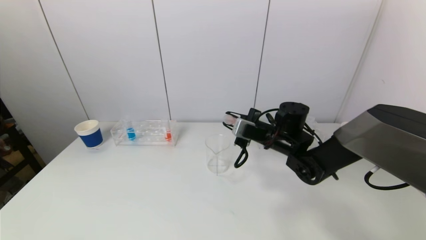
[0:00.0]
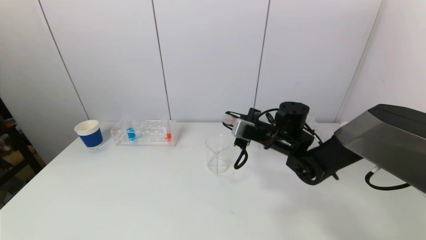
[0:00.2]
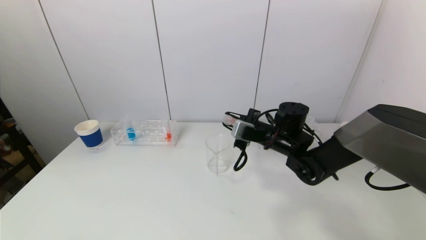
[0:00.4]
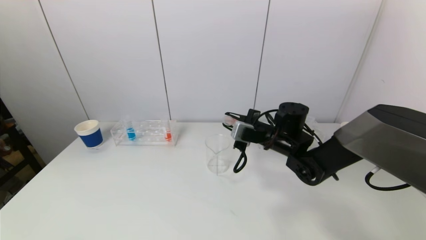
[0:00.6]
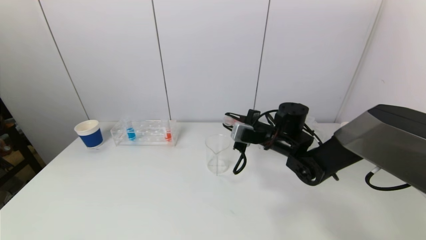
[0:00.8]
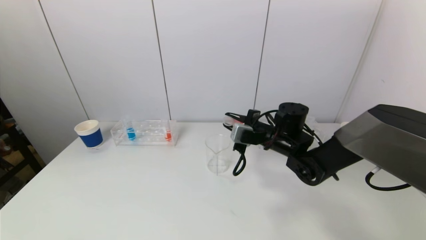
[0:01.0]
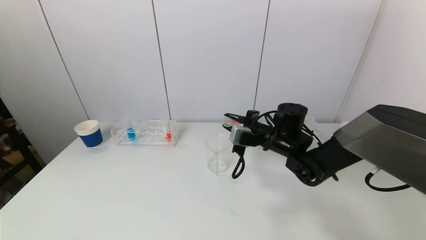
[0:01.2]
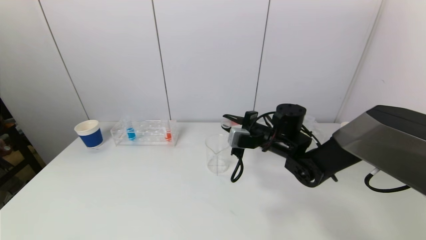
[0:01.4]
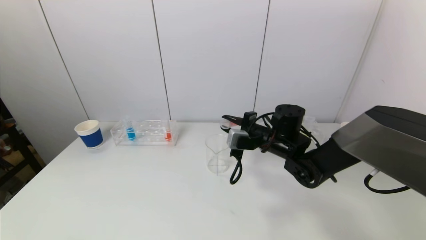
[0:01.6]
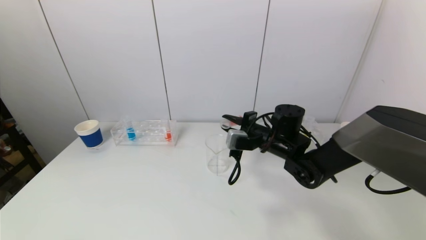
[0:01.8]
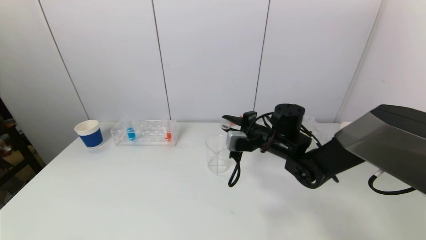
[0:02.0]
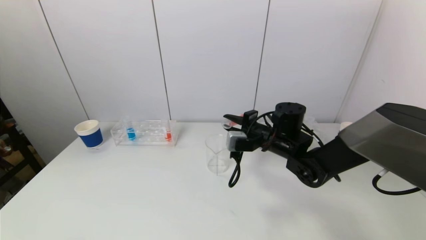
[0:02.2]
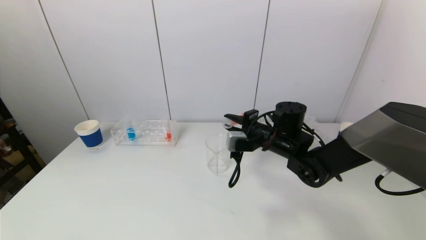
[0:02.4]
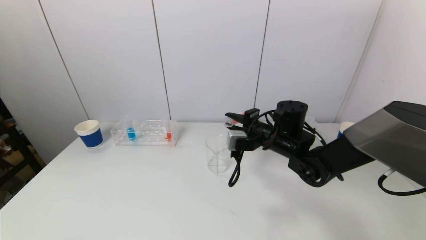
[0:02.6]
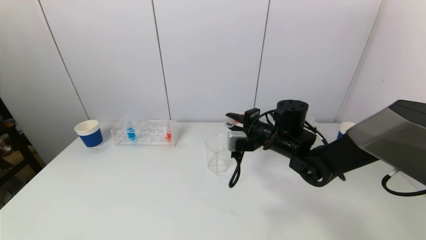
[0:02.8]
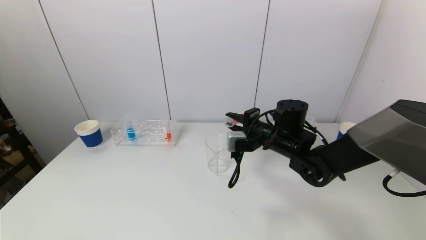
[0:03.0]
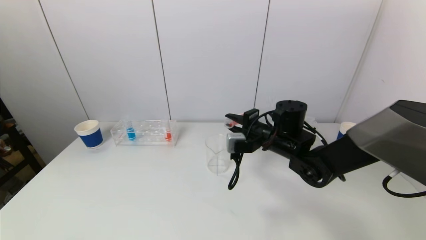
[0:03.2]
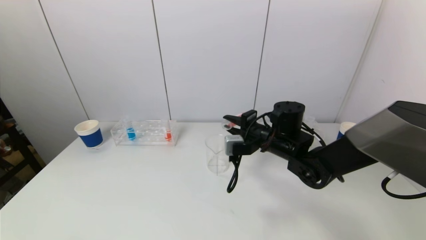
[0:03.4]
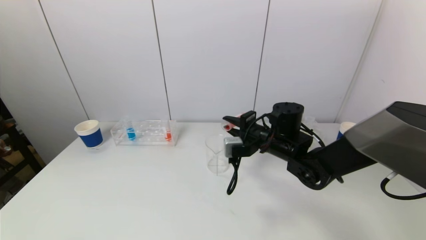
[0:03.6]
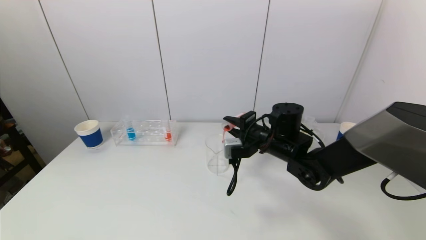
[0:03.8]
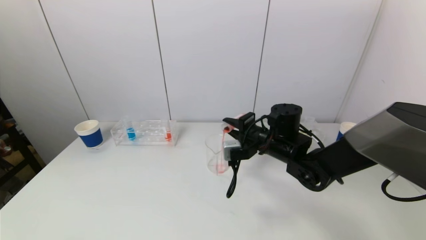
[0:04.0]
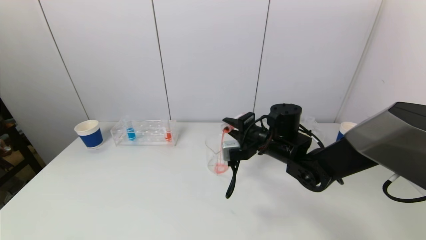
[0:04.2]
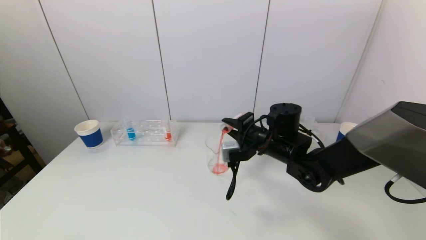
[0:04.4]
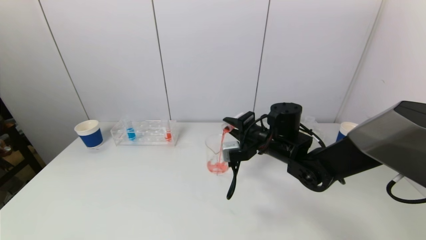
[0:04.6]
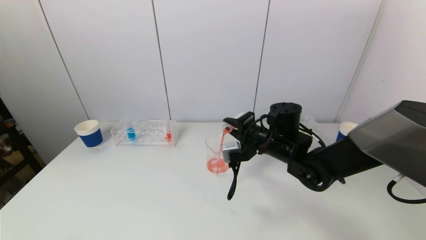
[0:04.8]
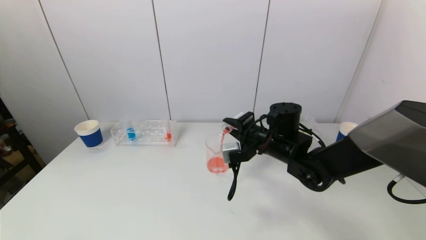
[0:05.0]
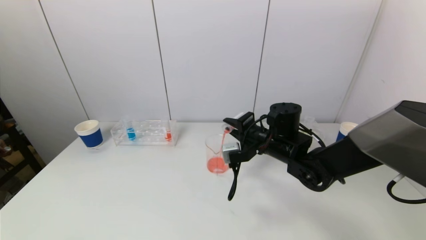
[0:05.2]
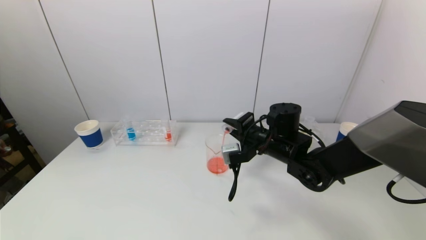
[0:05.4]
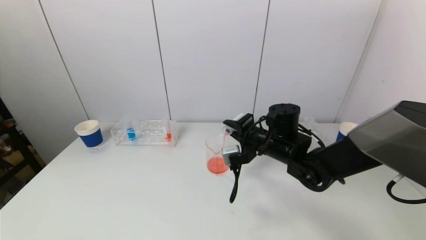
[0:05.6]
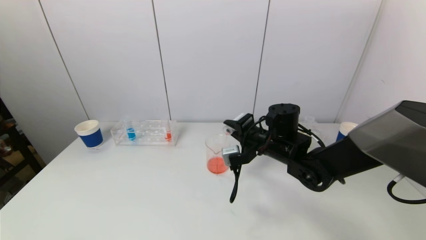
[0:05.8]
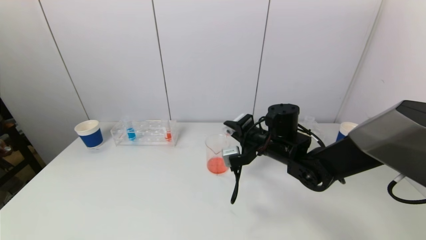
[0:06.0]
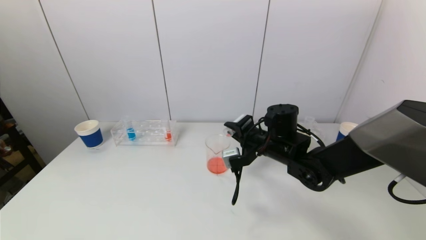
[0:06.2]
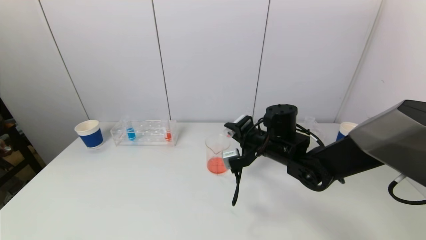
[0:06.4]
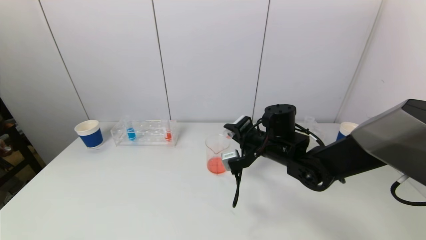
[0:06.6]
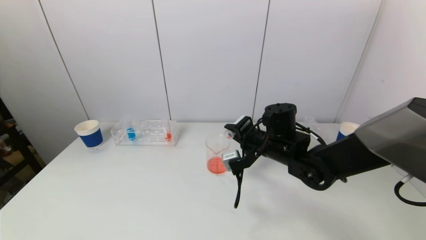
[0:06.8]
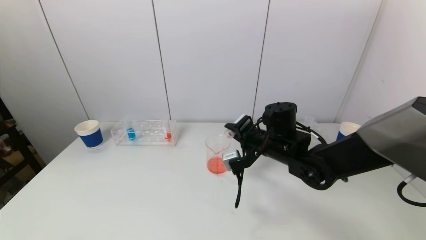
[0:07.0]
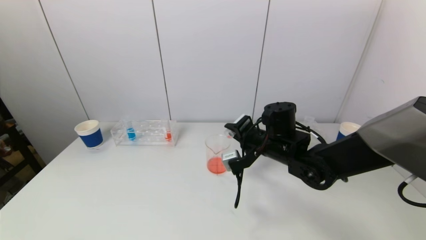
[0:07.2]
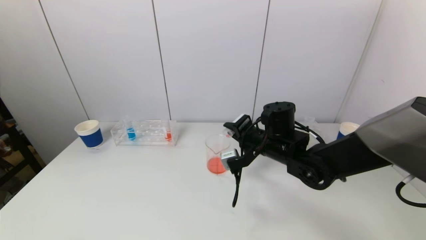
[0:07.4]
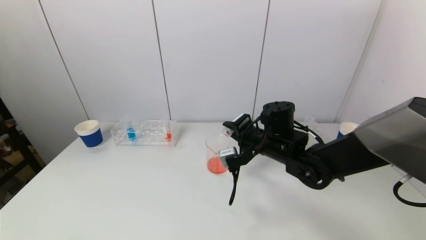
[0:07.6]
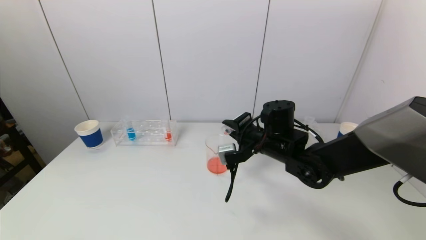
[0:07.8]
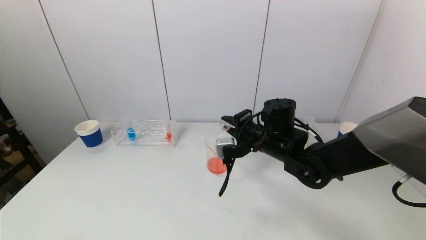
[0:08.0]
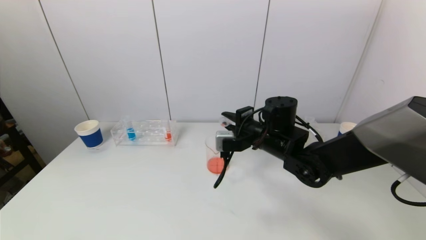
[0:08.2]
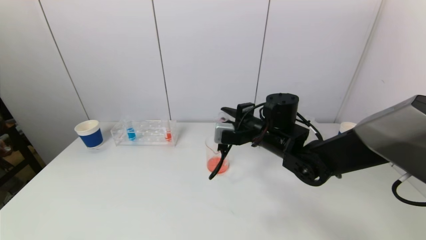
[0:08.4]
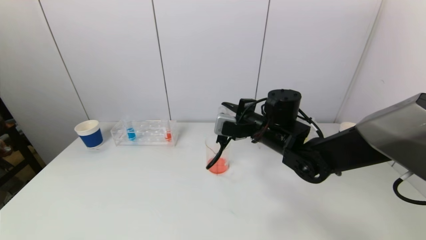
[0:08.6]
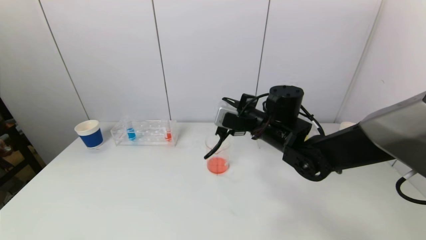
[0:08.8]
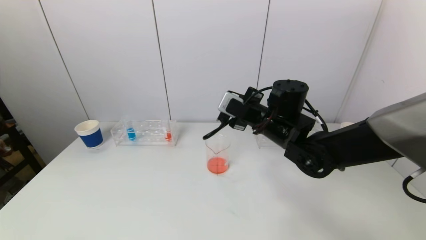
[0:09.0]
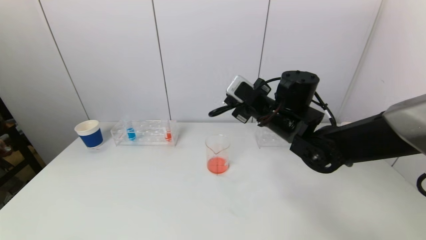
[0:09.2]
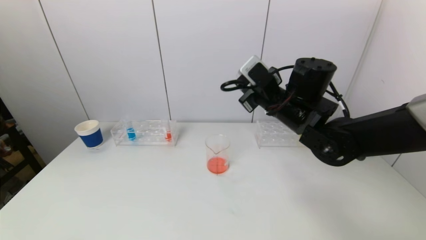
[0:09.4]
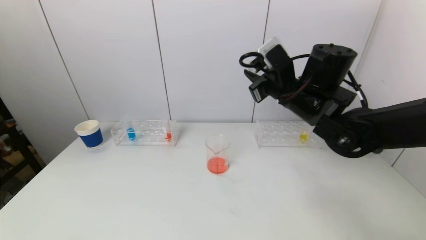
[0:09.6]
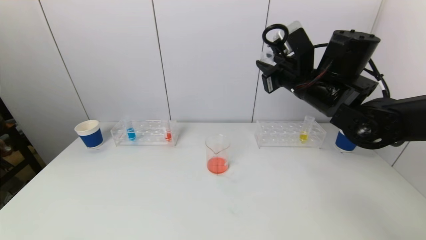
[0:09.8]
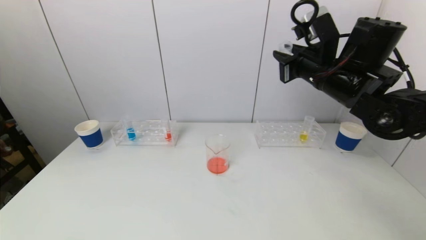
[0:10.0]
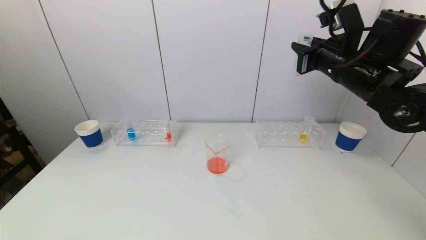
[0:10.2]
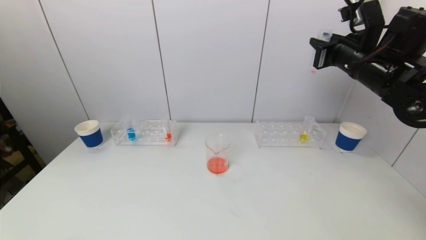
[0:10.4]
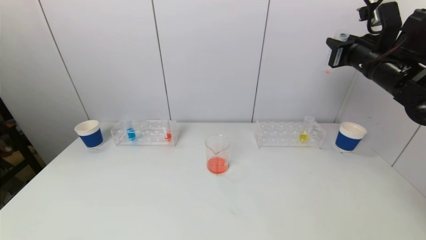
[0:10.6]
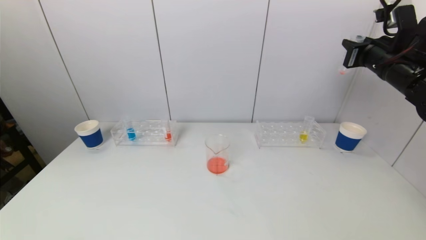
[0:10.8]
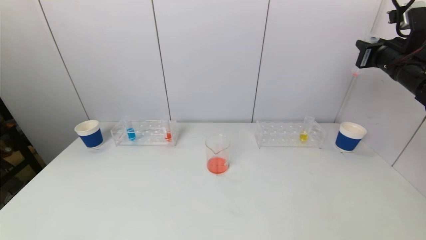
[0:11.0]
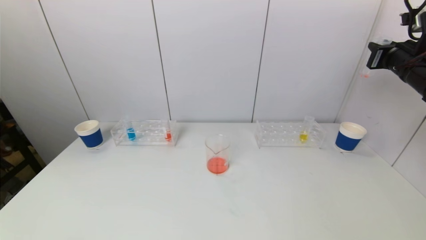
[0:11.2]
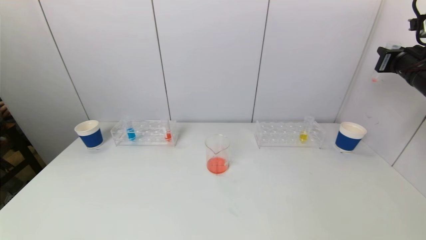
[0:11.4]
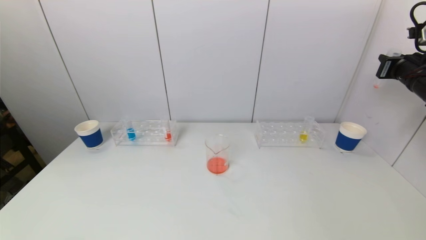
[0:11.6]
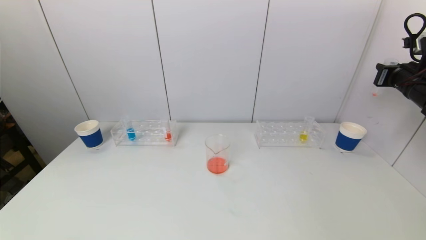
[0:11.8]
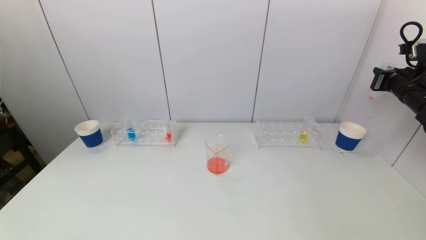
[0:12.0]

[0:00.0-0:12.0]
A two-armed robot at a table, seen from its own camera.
Task of the whole recording: pick up a test tube with pigment on left test tube rack and a test tube with pigment on right test tube rack by grippers and pour them into the beaker.
Step, 0:00.0 to 0:07.4: Pour the red reagent into the graduated cylinder with the right gripper.
0:00.0 to 0:01.6: There are only small adjustments of the grippers.
0:01.6 to 0:03.0: The grippers move only a little.
0:03.0 to 0:06.0: The grippers move only a little.
0:06.0 to 0:07.6: There are only small adjustments of the grippers.
0:07.6 to 0:09.0: The right gripper goes approximately 5 cm upward.
0:09.0 to 0:10.4: The right gripper travels to the right and upward by roughly 20 cm.
0:10.4 to 0:12.0: The right gripper goes about 15 cm to the right and downward.

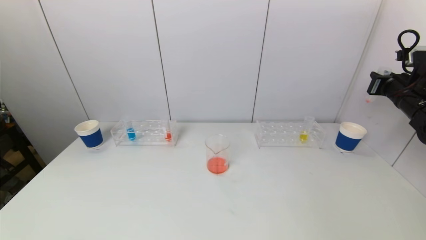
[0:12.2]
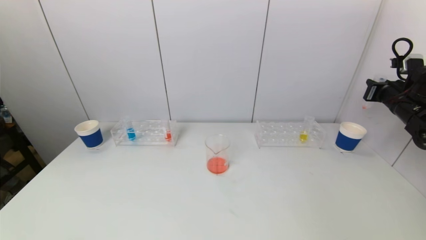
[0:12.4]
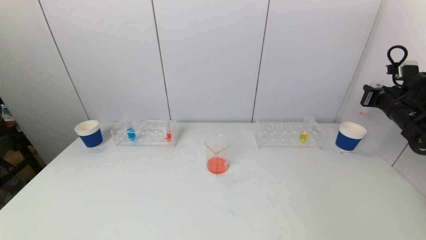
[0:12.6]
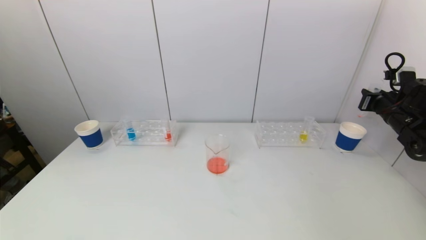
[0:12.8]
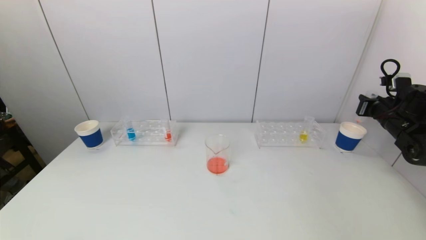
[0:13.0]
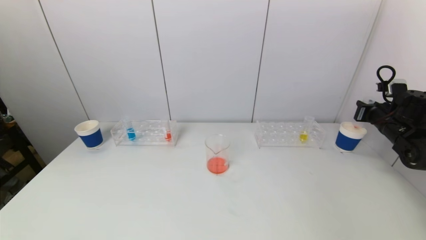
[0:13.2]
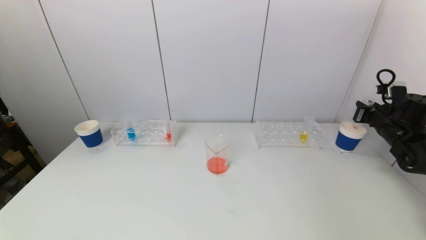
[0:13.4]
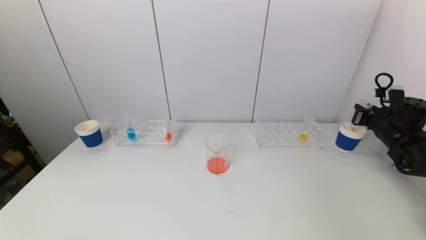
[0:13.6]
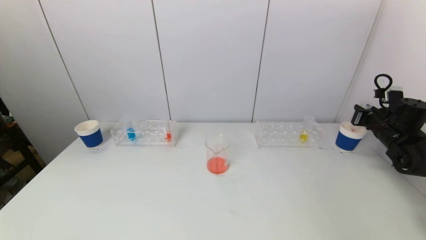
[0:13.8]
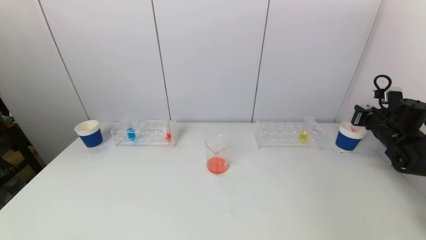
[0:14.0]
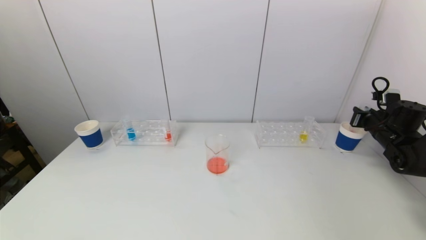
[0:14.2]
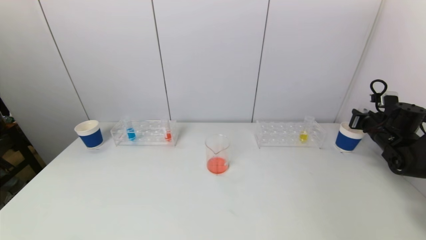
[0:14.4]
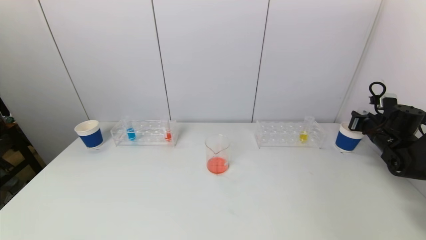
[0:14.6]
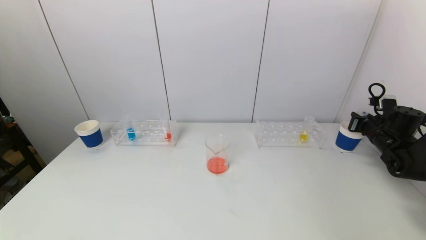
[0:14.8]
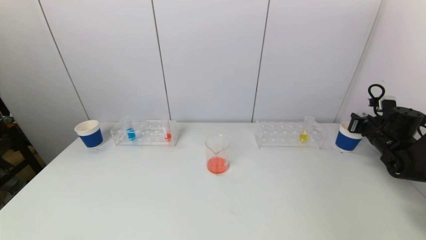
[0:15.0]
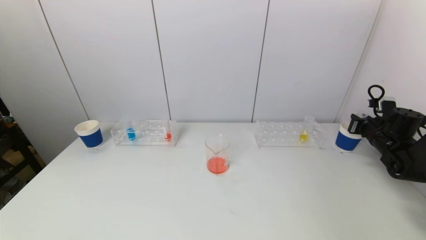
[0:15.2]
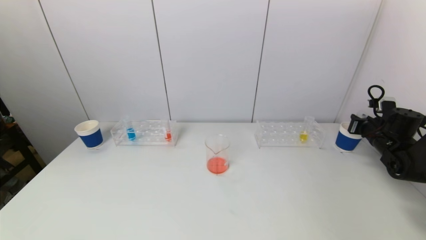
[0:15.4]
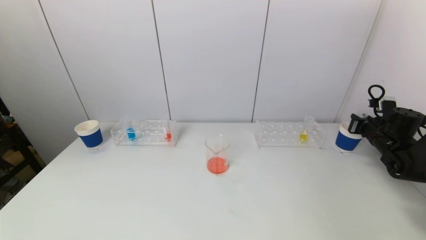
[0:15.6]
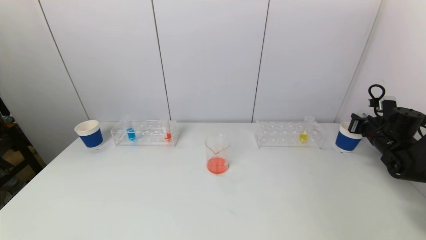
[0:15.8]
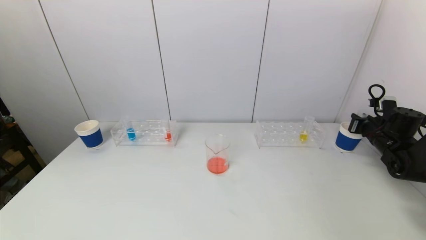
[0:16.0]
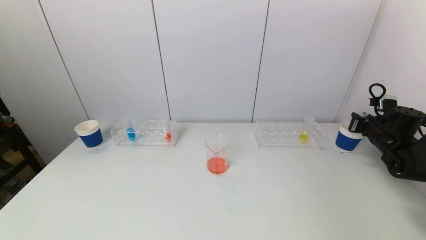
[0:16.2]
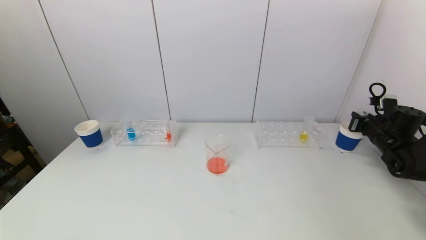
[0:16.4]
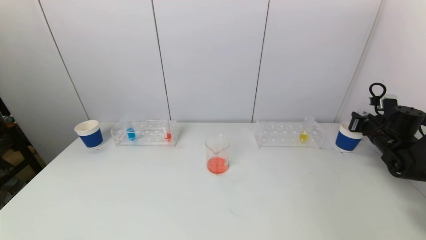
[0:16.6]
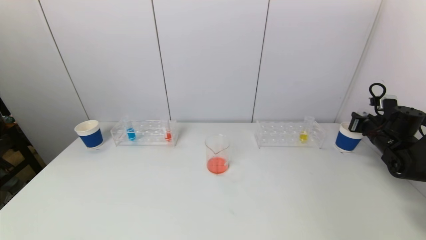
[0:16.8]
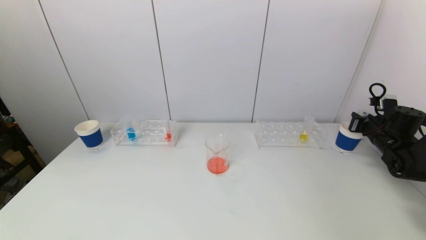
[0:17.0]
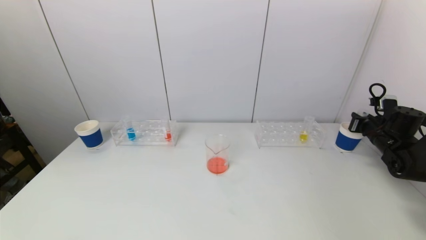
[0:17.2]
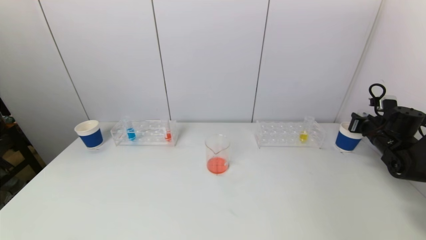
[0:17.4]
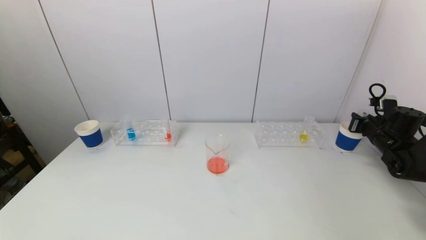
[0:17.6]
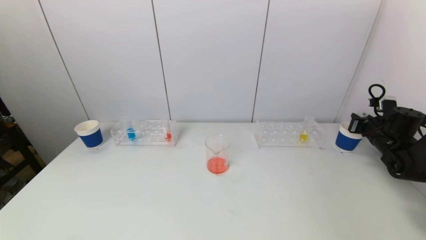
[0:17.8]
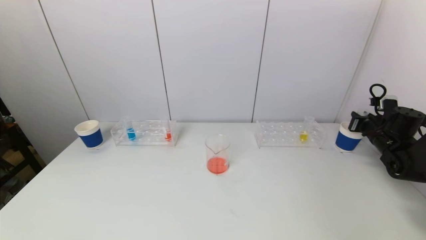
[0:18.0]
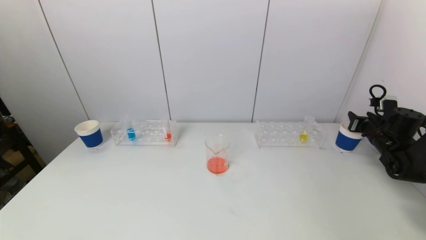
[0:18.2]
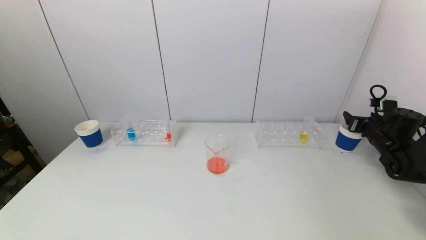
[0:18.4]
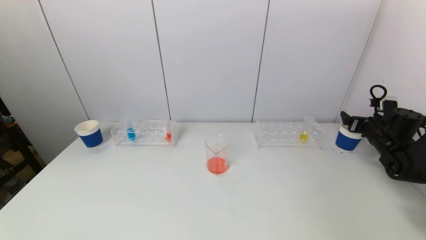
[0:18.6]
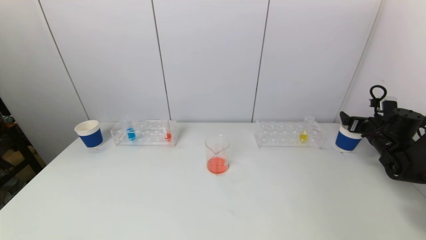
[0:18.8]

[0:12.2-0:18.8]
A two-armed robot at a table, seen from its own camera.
Task of the whole recording: pick up a test tube with pigment on left test tube rack and a test tube with pigment on right test tube rack by grippers and pour them into the beaker.
Step, 0:12.2 to 0:18.2: Place the test tube into the paper cup with the right gripper.
0:12.2 to 0:13.8: The right gripper is displaced downward by some 10 cm.
0:13.8 to 0:15.4: There are only small adjustments of the grippers.
0:15.4 to 0:17.2: Both grippers stay about where they are.
0:17.2 to 0:18.8: The right gripper opens up.
